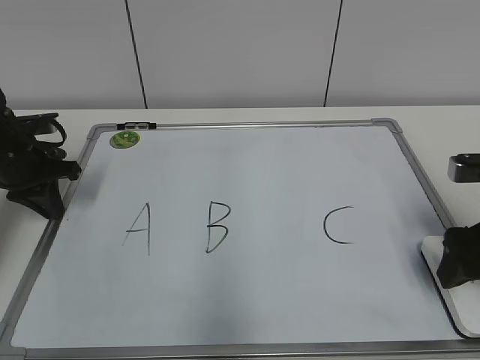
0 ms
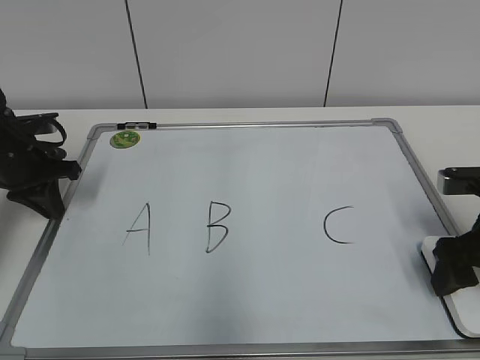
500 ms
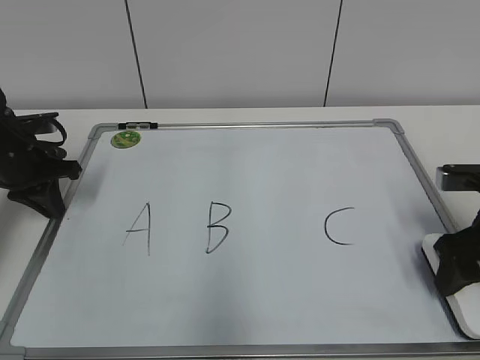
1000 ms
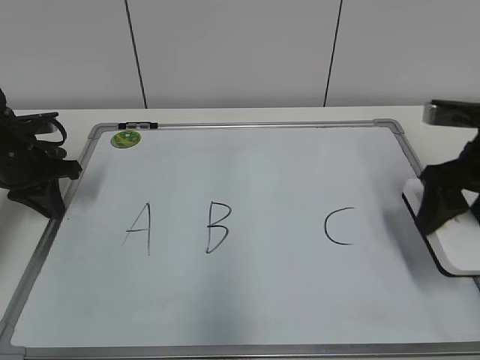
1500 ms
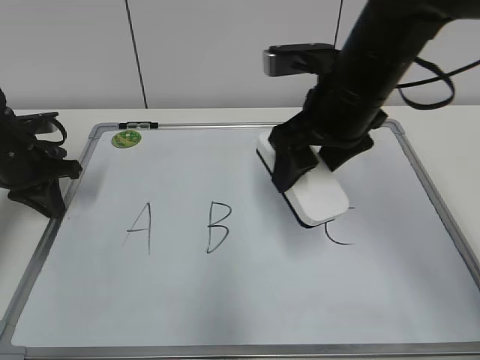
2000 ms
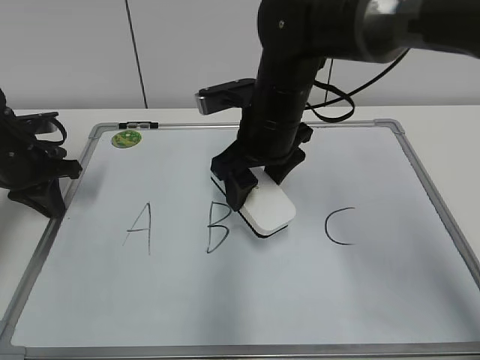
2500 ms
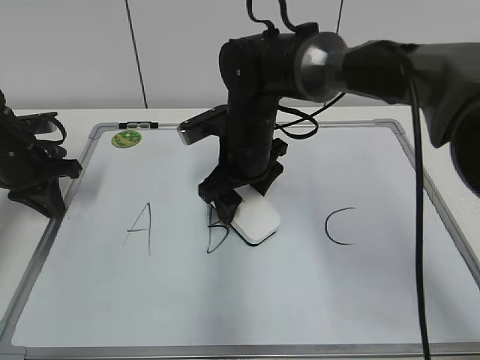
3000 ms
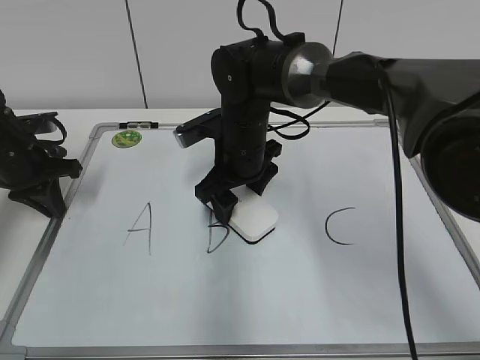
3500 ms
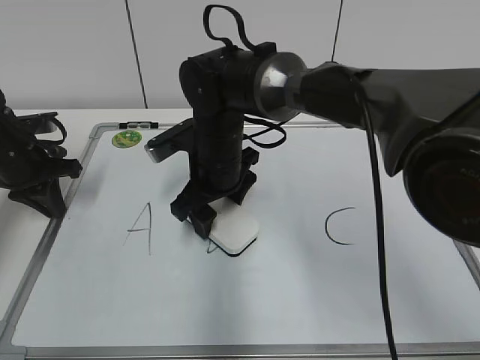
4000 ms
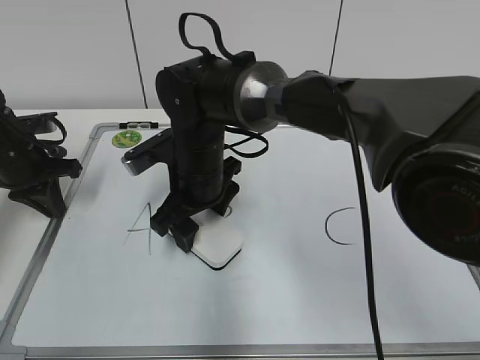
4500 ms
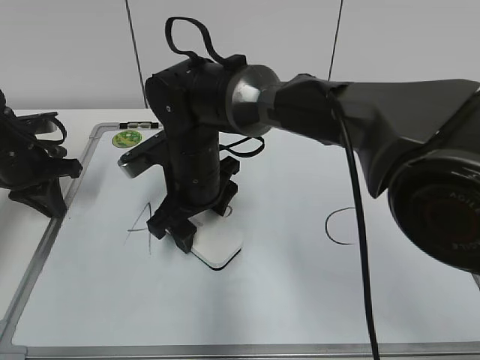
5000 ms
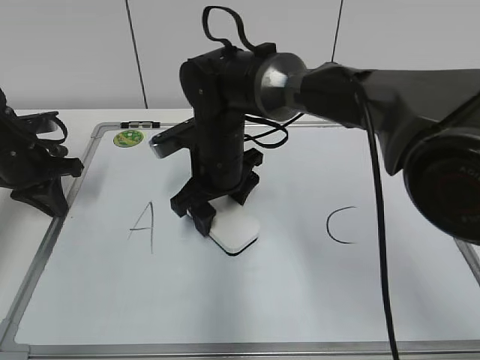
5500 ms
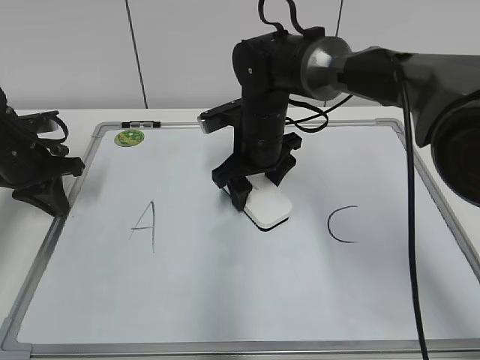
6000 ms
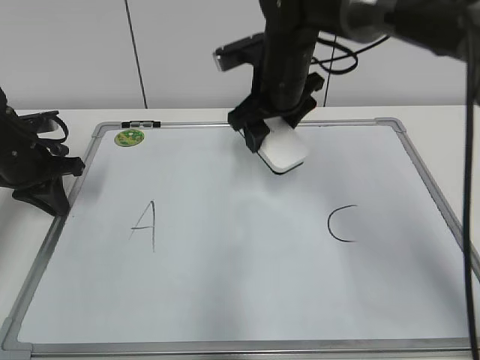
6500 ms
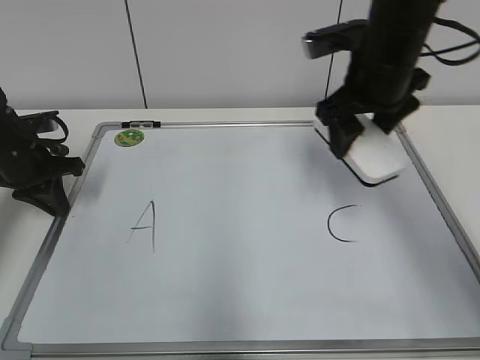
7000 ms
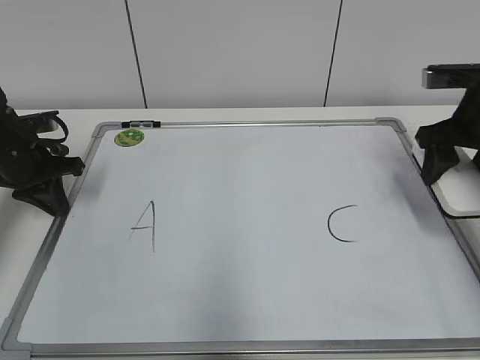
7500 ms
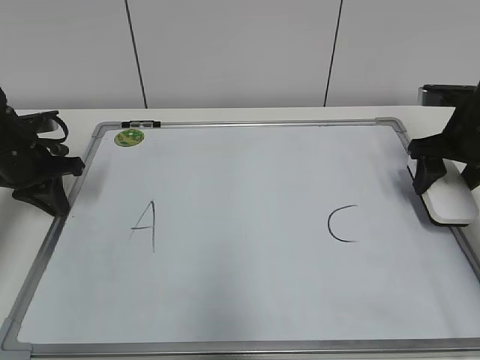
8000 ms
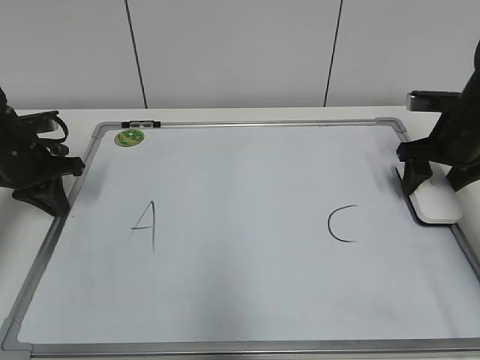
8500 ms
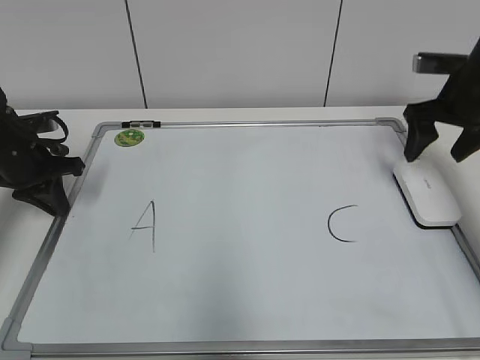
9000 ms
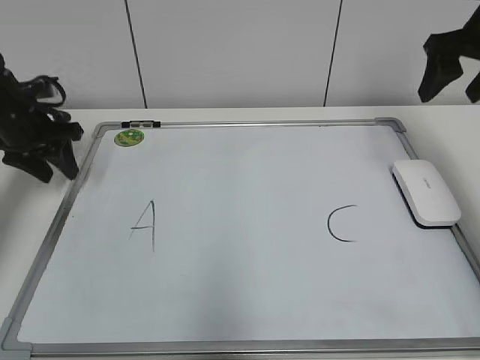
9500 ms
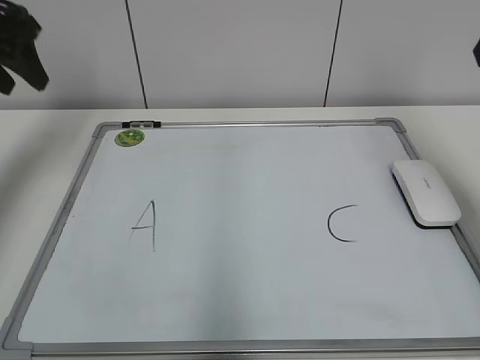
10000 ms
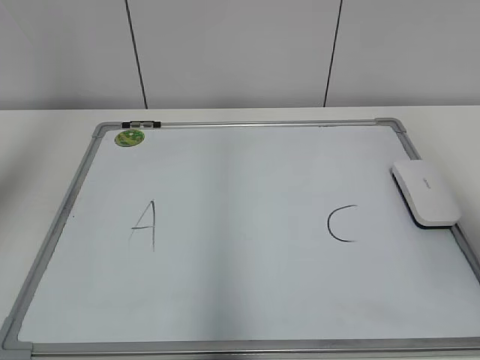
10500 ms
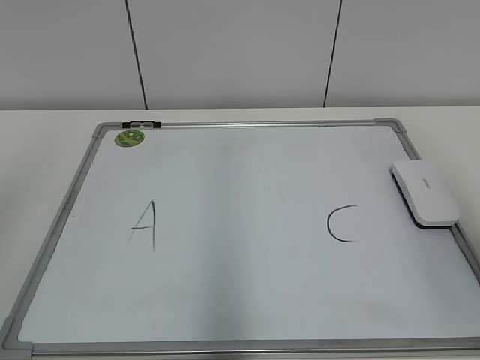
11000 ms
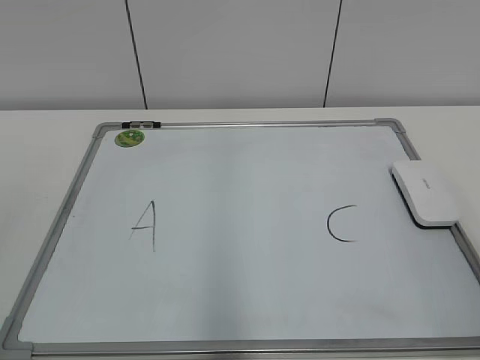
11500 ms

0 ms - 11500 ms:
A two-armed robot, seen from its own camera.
Task of the whole recording: pick up the eraser on the blackboard and erase the letter "B".
Step, 1000 ms - 6000 ms: Erase the letter B with your right hand.
Step, 6500 ms - 8500 ms: Put down the eraser with your right hand.
0 ms - 2000 ms: The right gripper goes roughly 20 cm to the left, upward and forward, and closes its fingers.
2000 ms - 4000 ms: The right gripper is displaced to the left, downward and forward by approximately 20 cm.
4000 ms - 6000 ms: The right gripper moves to the right, about 5 cm.
6000 ms - 7500 ms: The right gripper travels to the right by about 25 cm.
7500 ms - 9500 ms: The left gripper opens its fingers. The right gripper travels upward by roughly 10 cm, and opens up.
9500 ms - 11500 ms: The left gripper is displaced backward and upward by about 40 cm, while the right gripper moves backward, roughly 35 cm.
